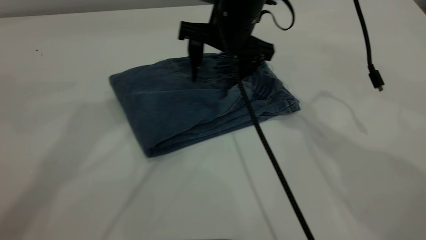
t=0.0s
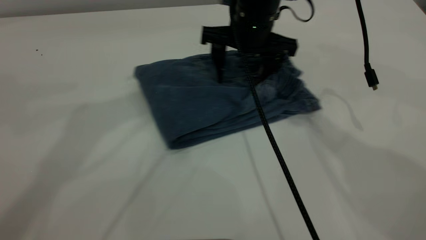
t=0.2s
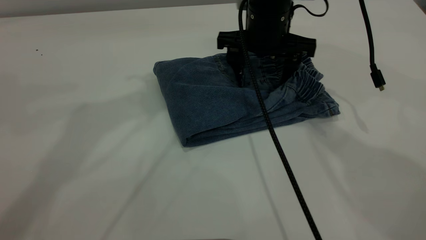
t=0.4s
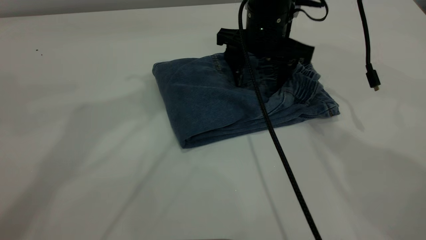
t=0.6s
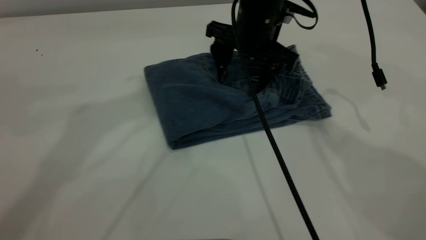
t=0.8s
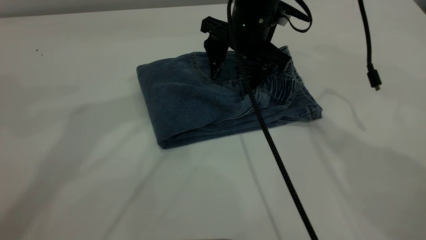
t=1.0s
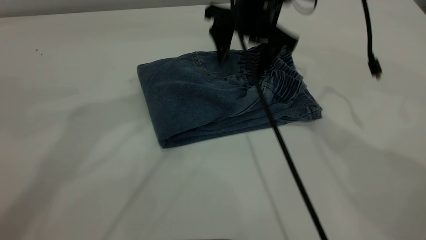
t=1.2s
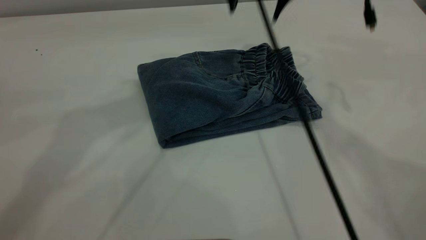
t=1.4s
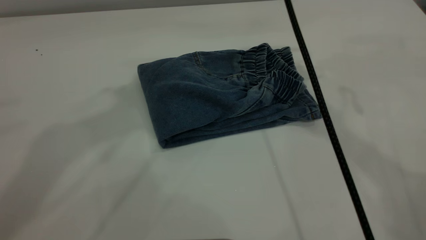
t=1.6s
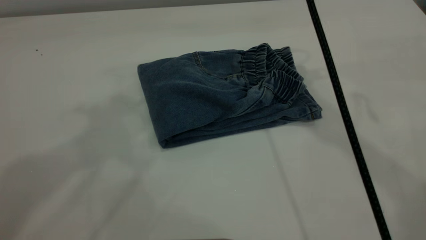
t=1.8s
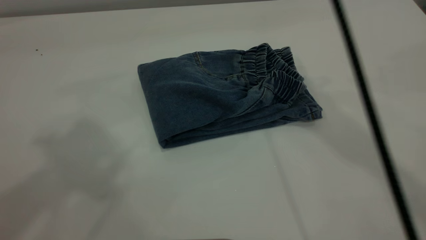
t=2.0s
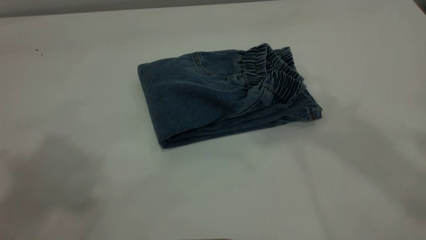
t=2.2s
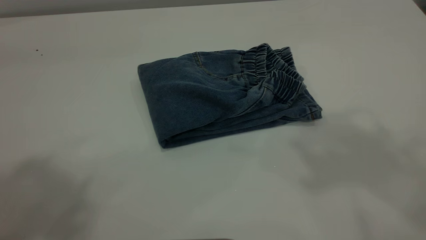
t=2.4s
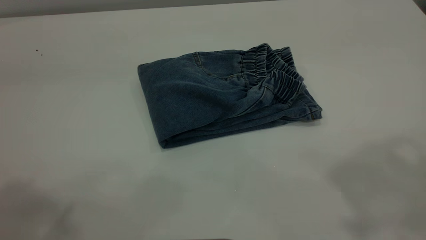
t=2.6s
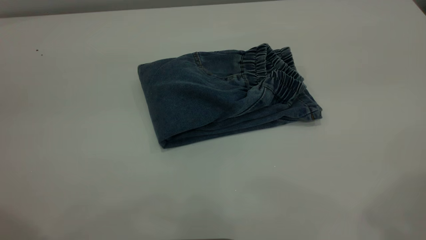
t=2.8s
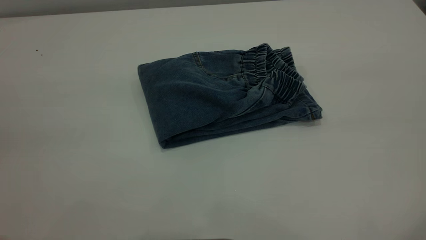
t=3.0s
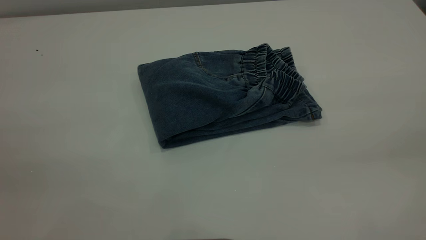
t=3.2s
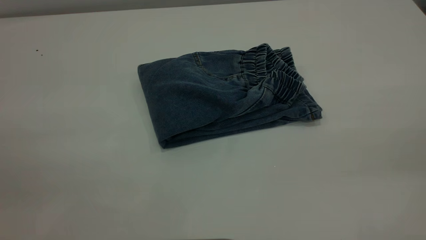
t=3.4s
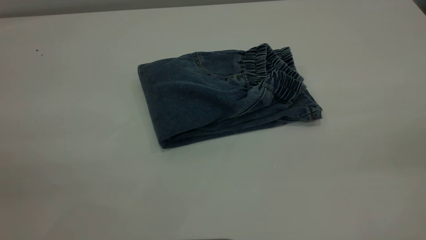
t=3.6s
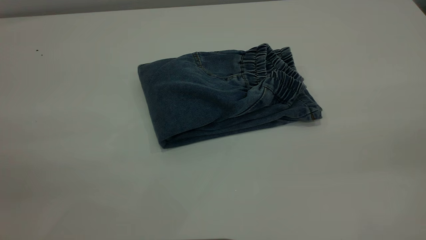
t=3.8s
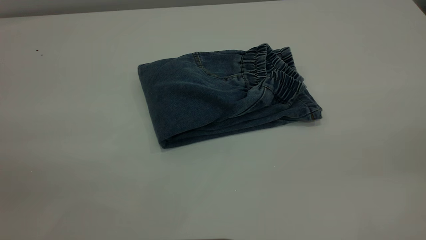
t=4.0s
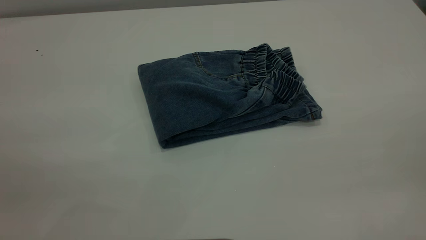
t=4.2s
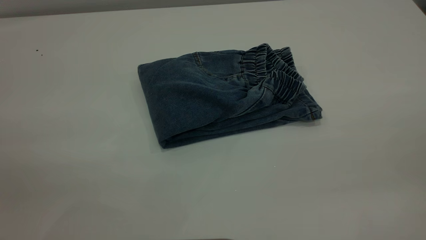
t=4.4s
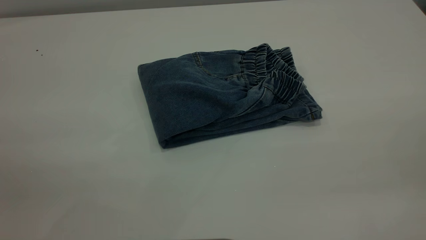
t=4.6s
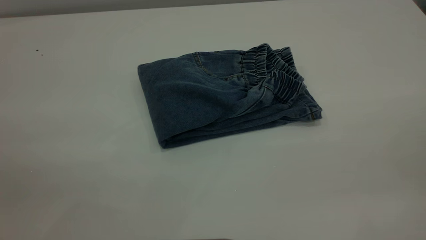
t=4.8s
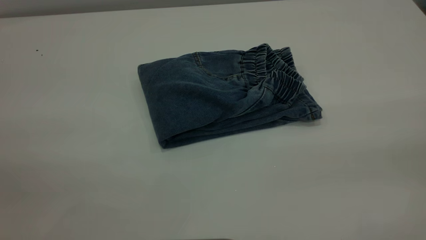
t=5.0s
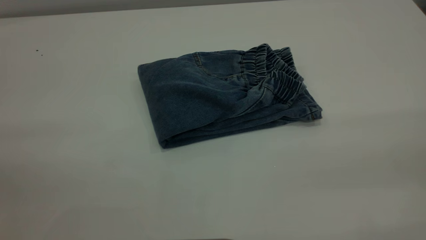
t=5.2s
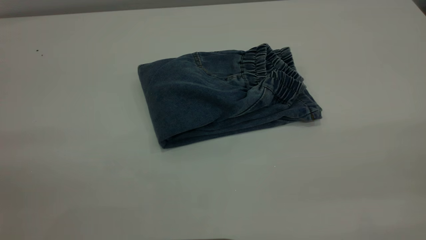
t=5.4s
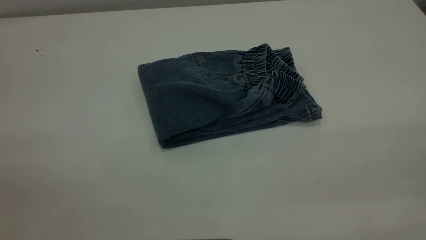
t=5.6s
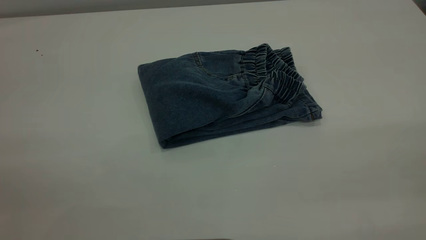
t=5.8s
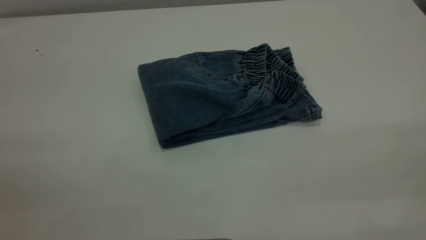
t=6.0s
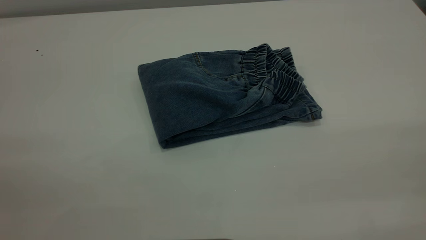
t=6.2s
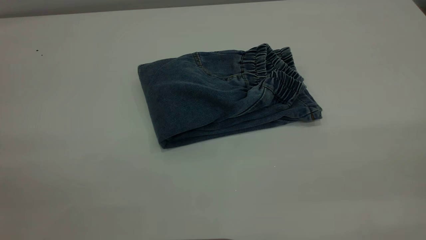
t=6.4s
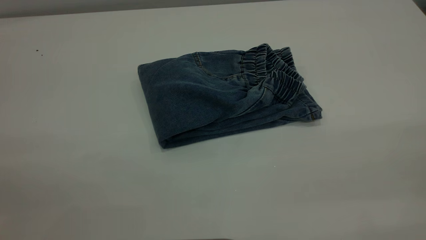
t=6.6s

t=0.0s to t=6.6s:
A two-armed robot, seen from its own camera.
t=0.0s to t=1.6s: The left gripper travels upward and backward by approximately 10 cm; the right gripper shifts roughly 15 cm upward.
t=1.6s to t=3.2s: The right gripper goes approximately 40 cm backward and to the right.
